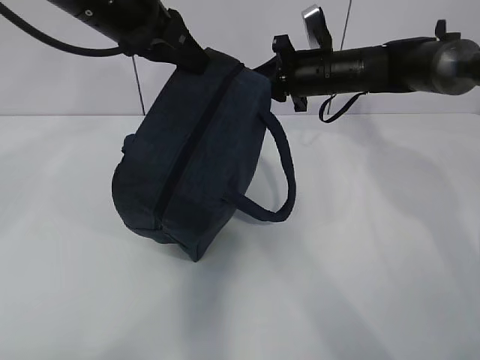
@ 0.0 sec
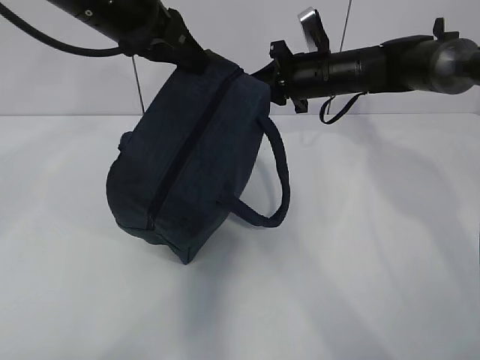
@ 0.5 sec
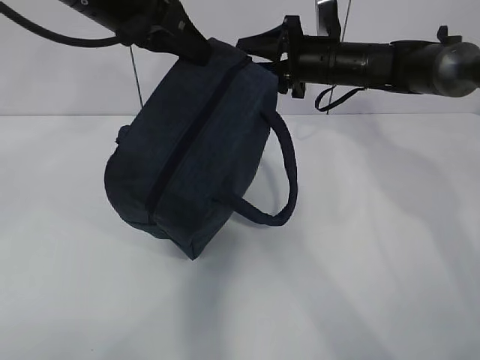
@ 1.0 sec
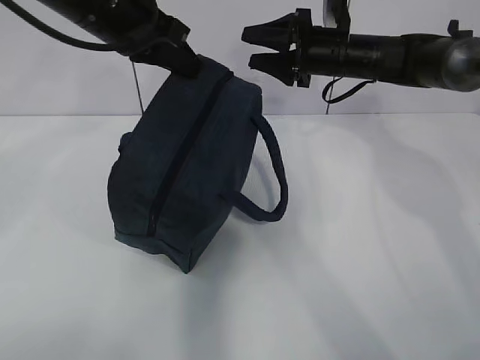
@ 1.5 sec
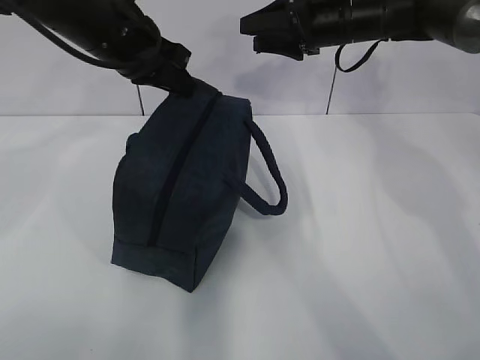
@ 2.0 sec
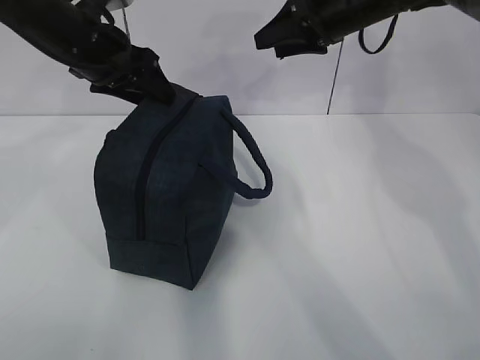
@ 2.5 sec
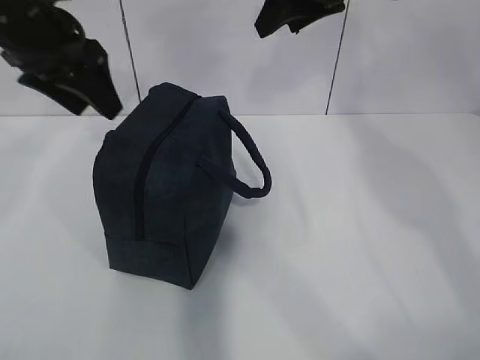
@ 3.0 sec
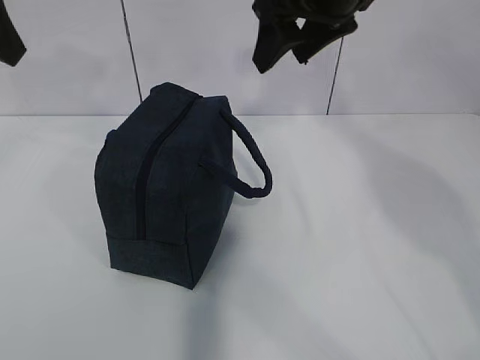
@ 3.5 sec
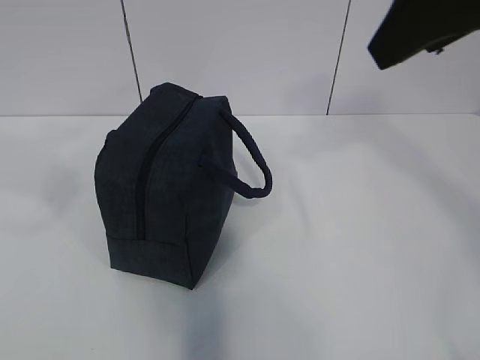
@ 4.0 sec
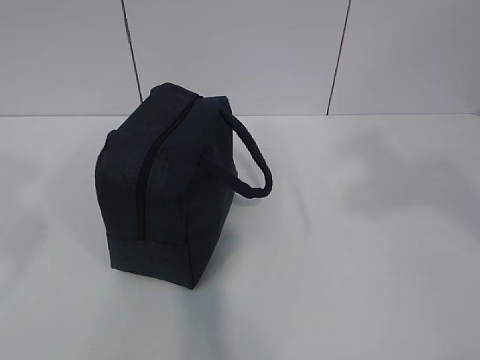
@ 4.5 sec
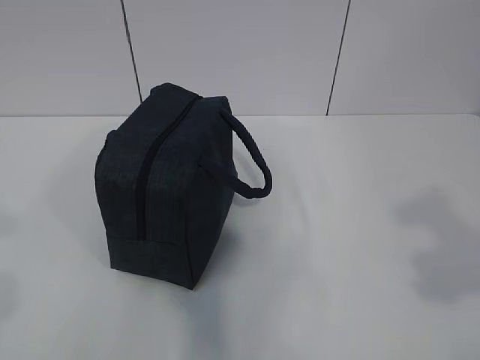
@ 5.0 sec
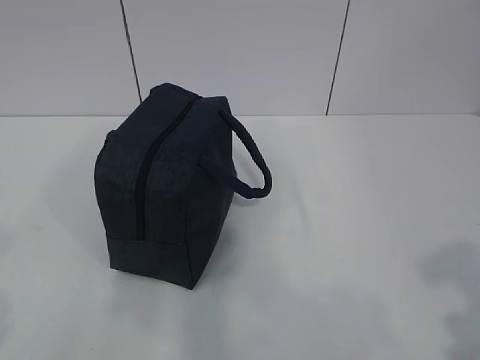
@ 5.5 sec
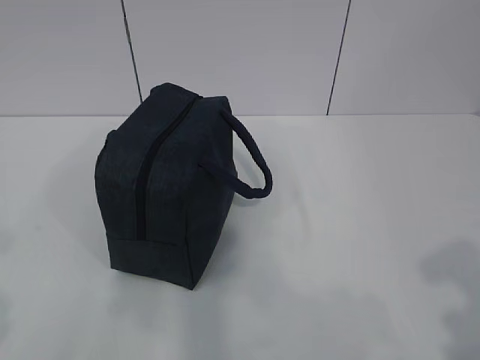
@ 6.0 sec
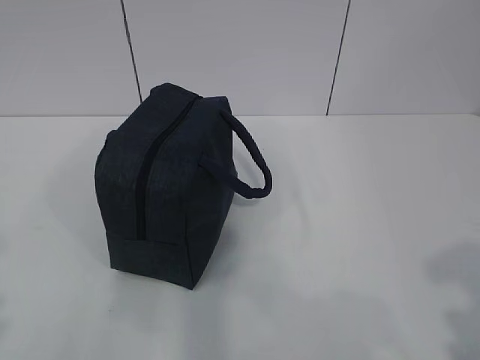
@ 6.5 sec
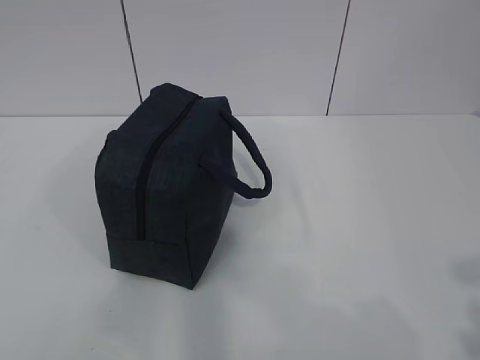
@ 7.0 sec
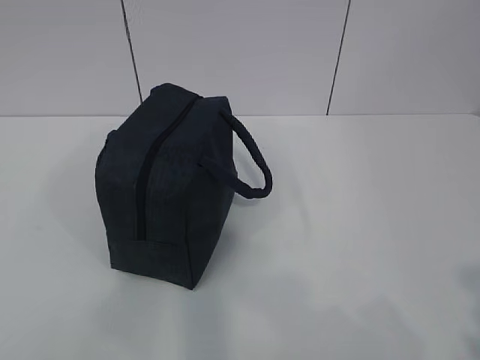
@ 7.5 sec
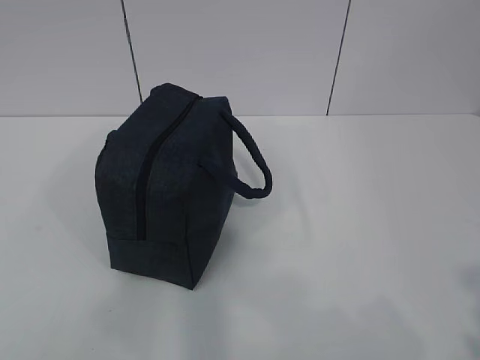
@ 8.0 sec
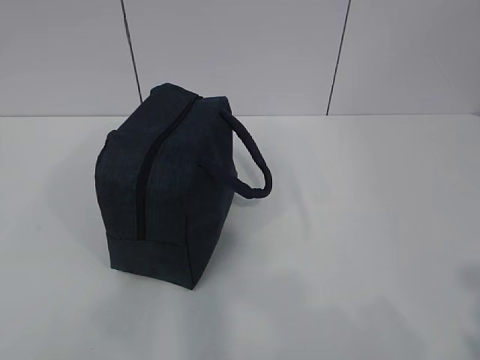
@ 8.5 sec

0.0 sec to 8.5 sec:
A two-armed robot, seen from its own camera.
0.0 sec to 2.0 sec: The left gripper changes place by approximately 5 cm, while the right gripper moves upward, about 5 cm, and opens up.
2.0 sec to 4.0 sec: The right gripper is displaced backward and upward by some 30 cm. Meanwhile the left gripper shifts approximately 30 cm backward, to the left and upward, and opens its fingers.
4.0 sec to 6.5 sec: The right gripper goes some 30 cm backward, downward and to the right.
